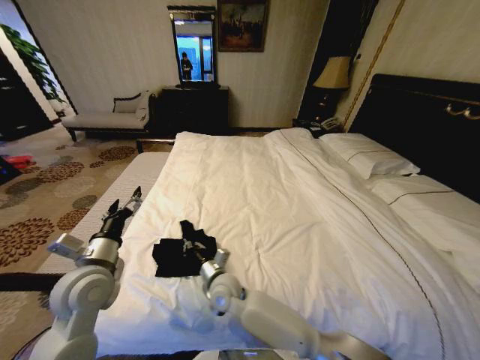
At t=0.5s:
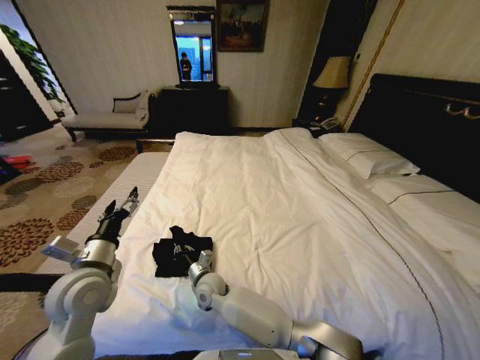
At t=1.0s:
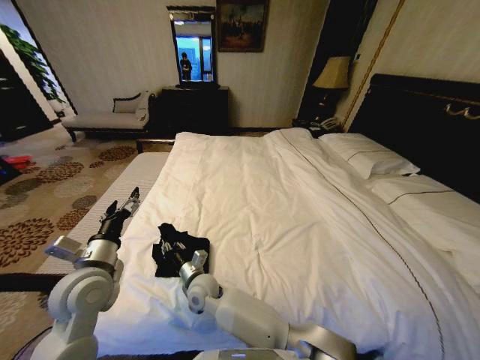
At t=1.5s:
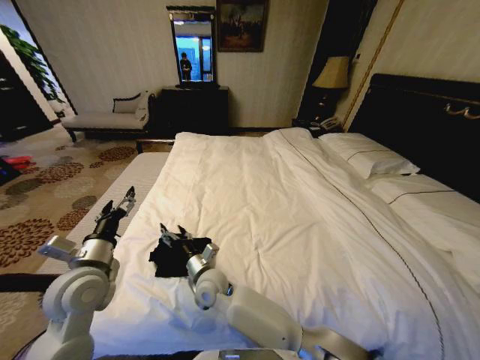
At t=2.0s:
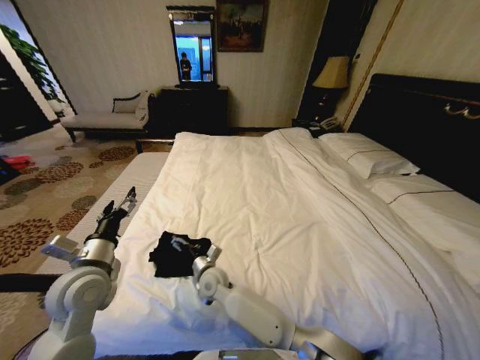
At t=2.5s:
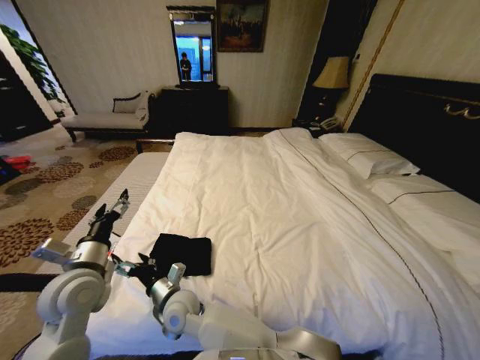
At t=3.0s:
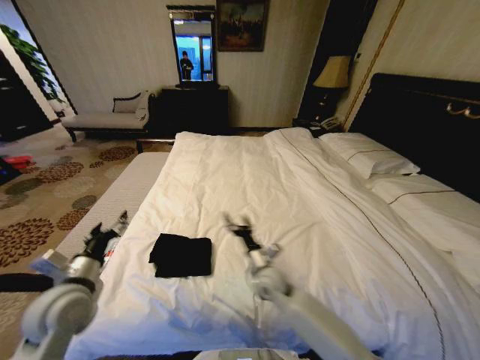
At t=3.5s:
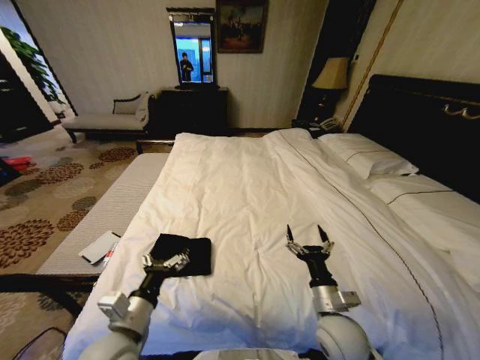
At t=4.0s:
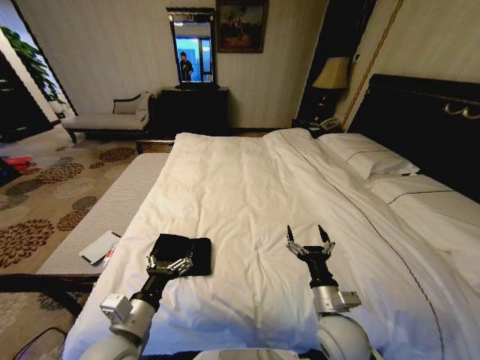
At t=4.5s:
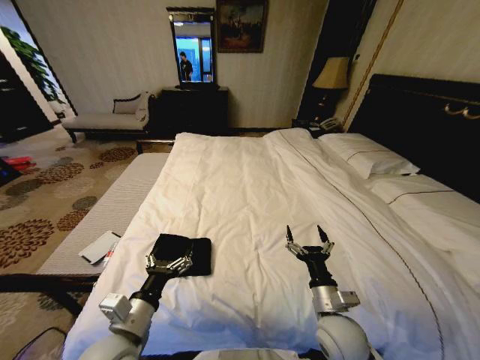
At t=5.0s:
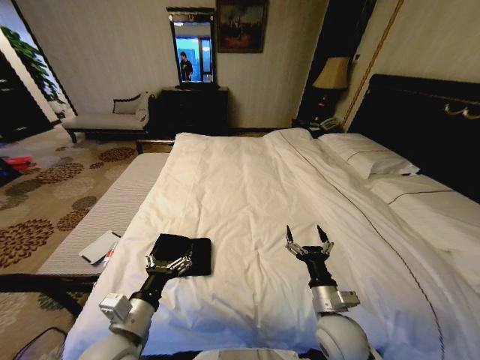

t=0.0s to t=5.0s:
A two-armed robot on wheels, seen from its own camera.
Task of the whole recording: Fold the clothes on the bed.
t=0.0s to t=2.5s: The right gripper travels to the left by some 10 cm, and opens.
t=2.5s to t=5.0s: The left gripper is displaced backward, to the right and downward by some 15 cm. Meanwhile the right gripper heads to the right, covering roughly 40 cm.
